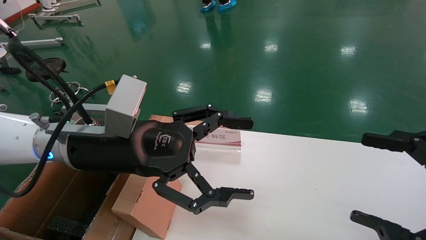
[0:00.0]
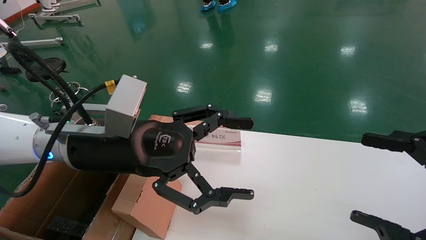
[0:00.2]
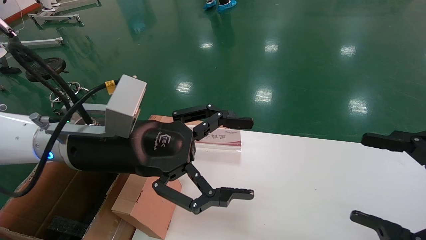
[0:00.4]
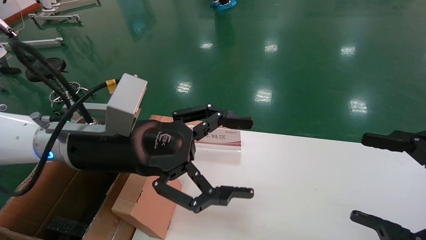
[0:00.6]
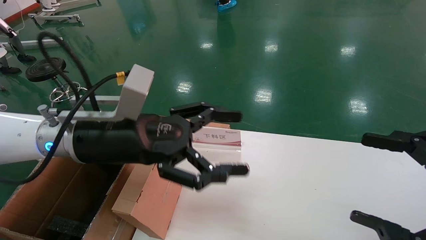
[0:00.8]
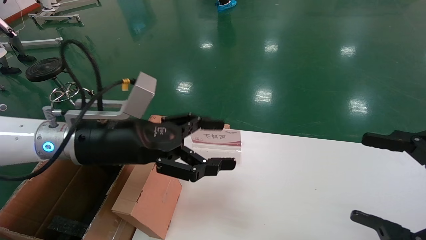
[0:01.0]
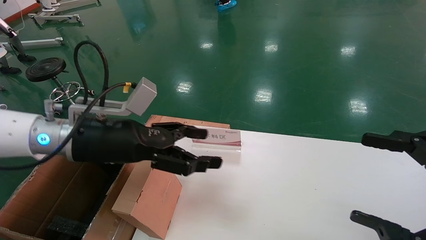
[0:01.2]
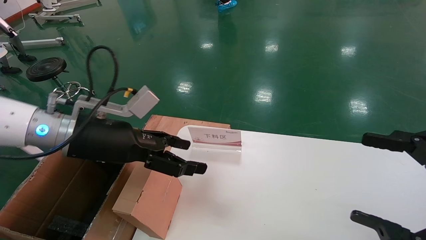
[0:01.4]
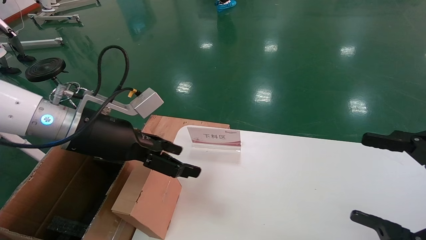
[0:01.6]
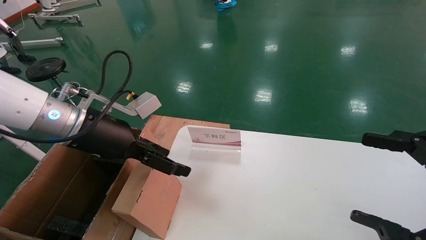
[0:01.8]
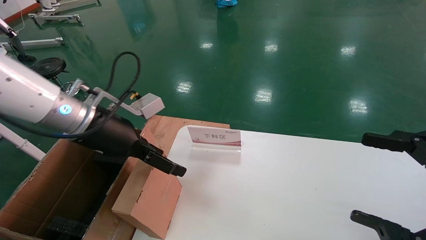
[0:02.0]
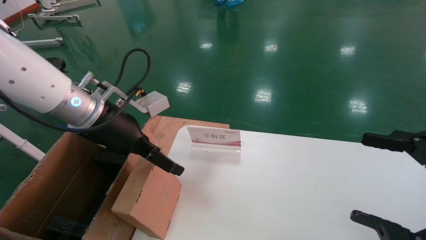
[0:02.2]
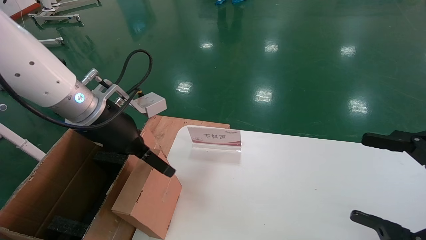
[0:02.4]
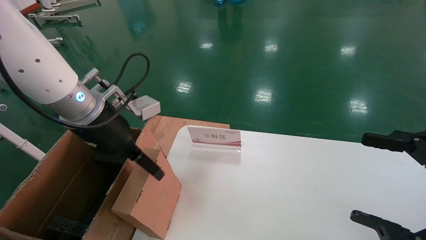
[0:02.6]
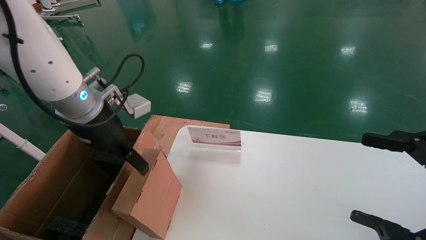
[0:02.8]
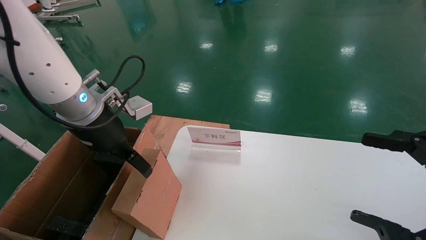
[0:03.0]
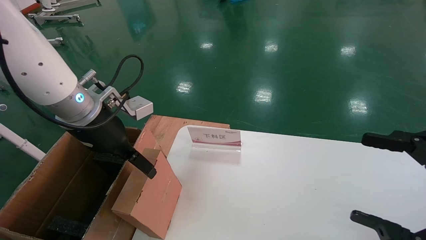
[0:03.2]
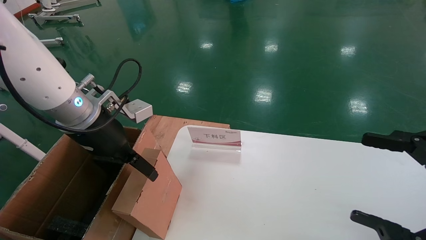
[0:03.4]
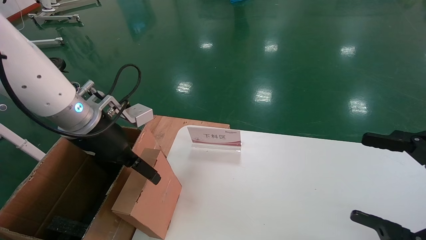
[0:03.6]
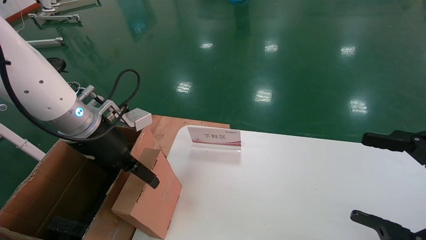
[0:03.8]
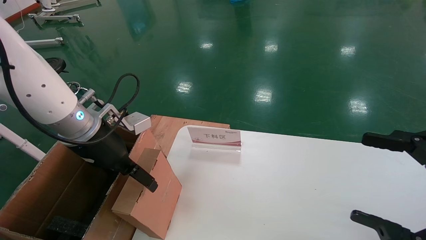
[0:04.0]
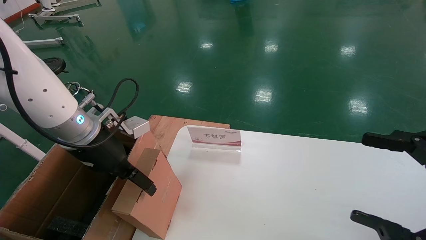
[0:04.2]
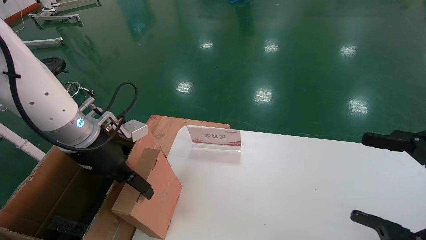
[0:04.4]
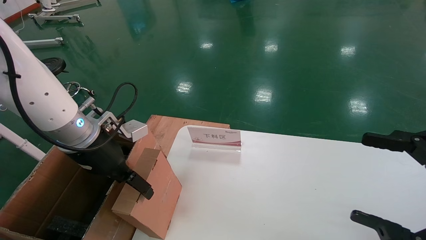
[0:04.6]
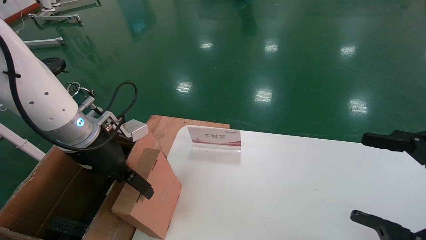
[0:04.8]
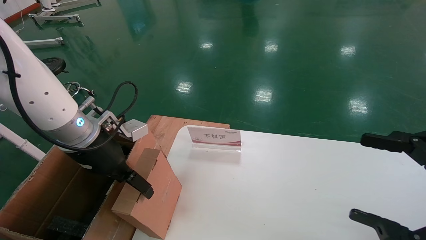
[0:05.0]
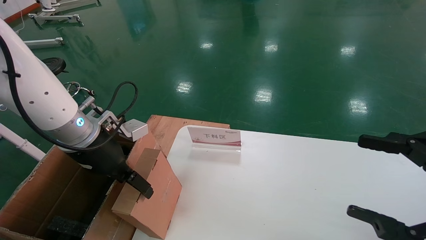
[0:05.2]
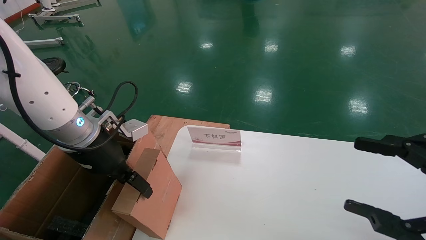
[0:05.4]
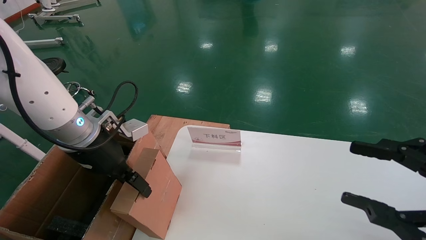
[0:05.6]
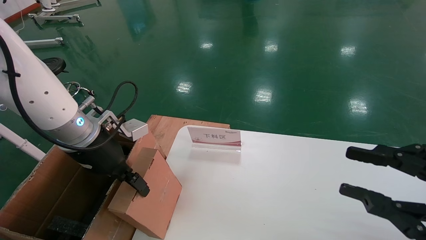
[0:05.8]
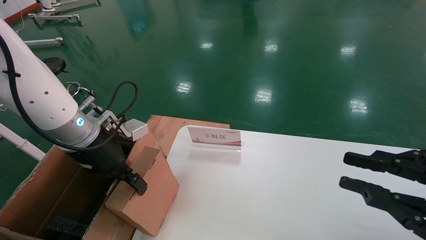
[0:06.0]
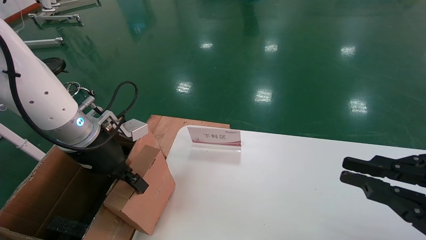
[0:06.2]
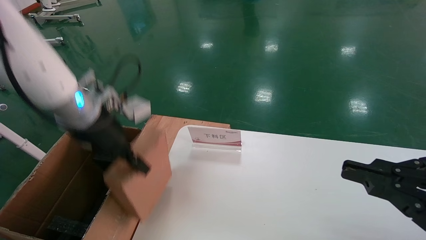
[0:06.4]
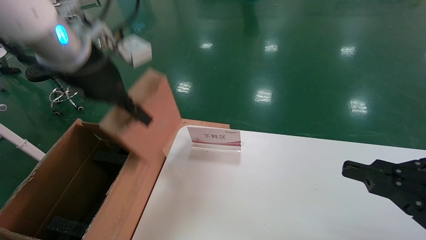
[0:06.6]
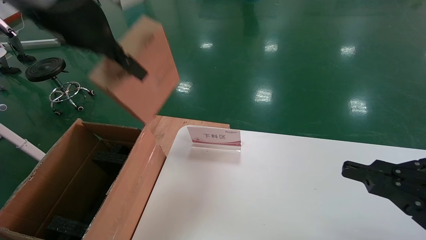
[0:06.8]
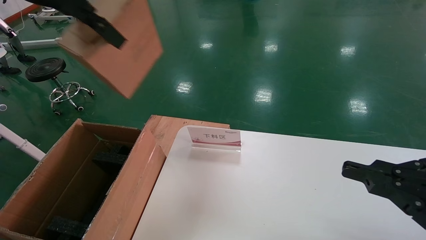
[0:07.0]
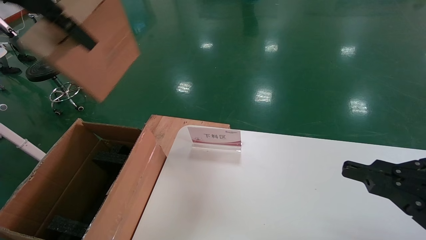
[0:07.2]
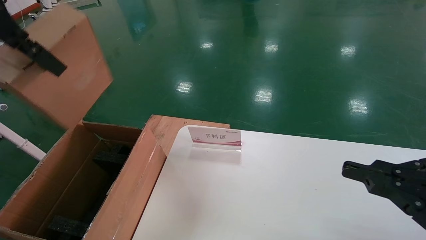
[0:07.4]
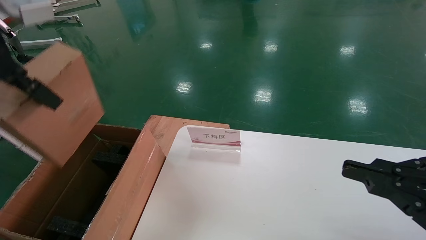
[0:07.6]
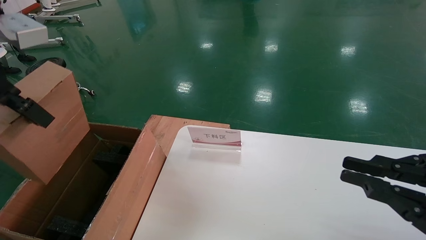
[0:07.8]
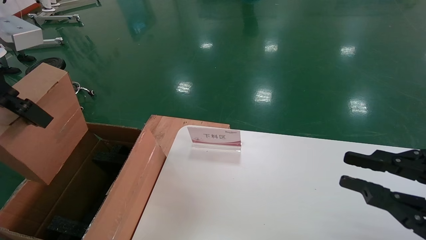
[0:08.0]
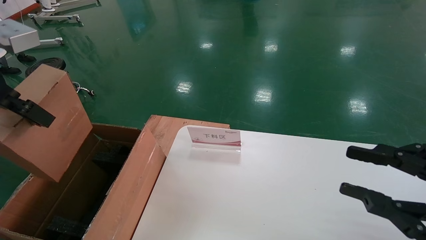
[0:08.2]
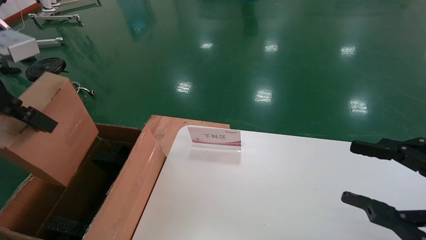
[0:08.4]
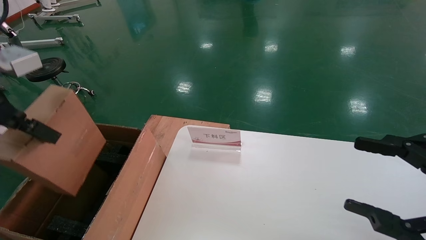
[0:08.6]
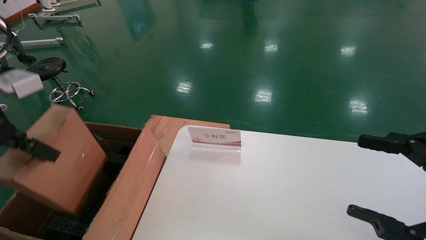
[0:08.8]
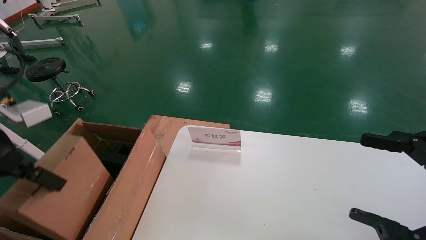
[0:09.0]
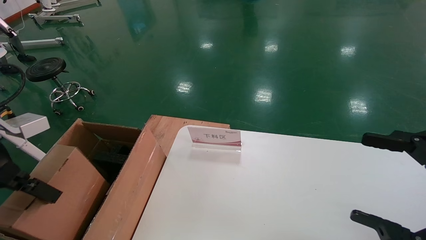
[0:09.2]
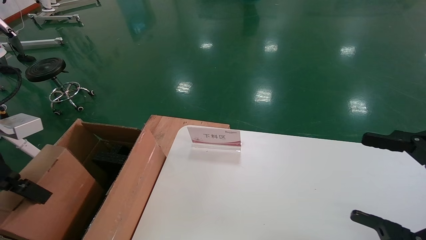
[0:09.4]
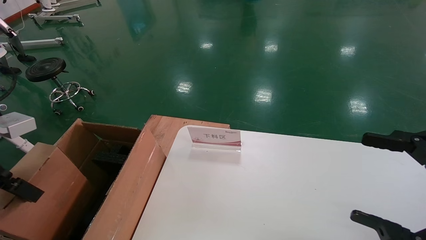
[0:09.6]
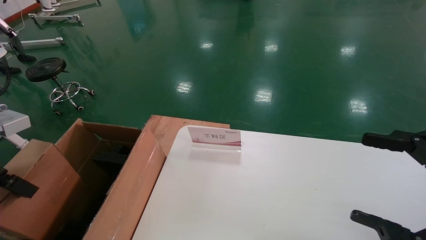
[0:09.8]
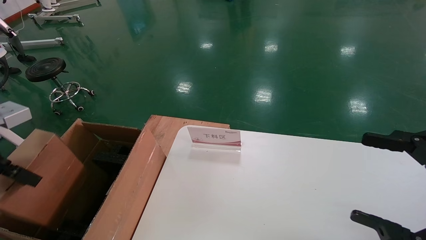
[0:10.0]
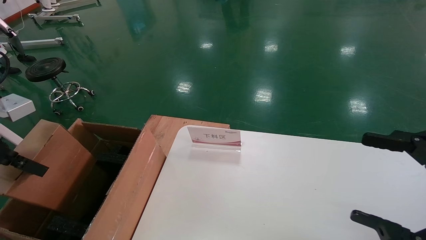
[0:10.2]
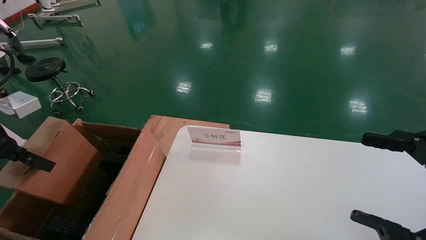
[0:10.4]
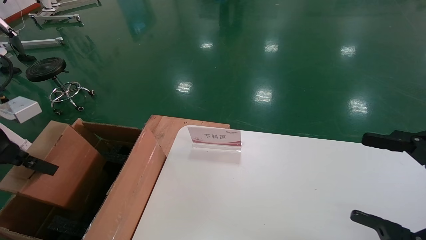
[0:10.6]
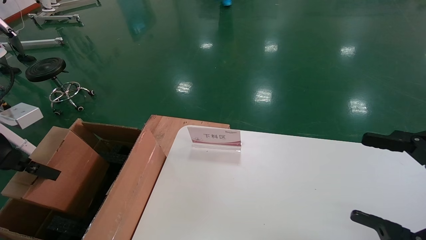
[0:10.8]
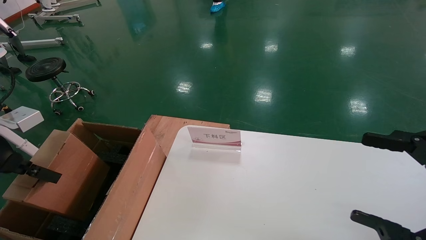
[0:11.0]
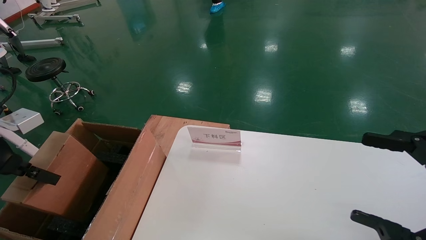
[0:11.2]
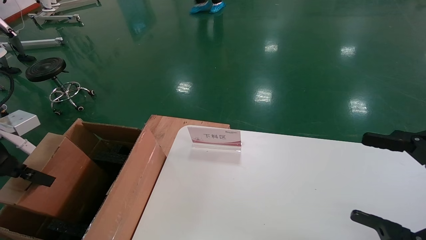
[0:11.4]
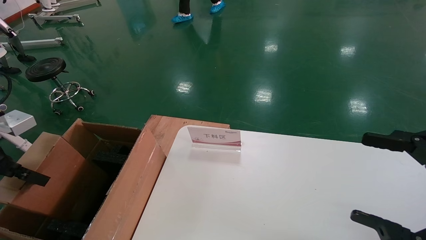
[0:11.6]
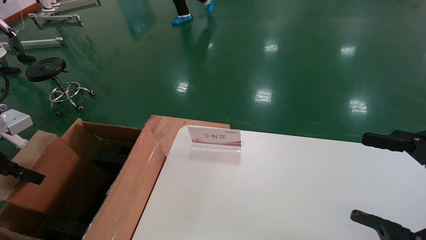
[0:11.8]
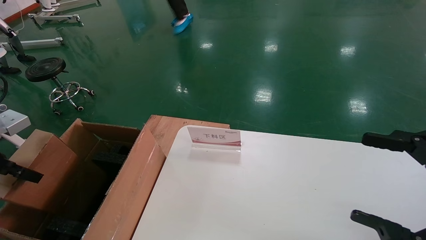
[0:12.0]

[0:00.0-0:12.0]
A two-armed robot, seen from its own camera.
Task of the whole recording: pick up the small cardboard box and load it into the large cardboard box.
Step, 0:00.8 to 0:05.8: Pick up the mouse and power cord box.
0:00.0 to 0:01.6: The left gripper travels to the left by roughly 5 cm.
0:03.0 to 0:04.4: The left gripper ends up roughly 5 cm from where it was.
0:04.4 to 0:06.0: The right gripper closes up. The left gripper closes its fingers.
0:06.0 to 0:07.6: The left gripper moves upward and backward, roughly 25 cm.
0:07.6 to 0:09.0: The right gripper opens. The left gripper goes roughly 15 cm downward and to the left.
0:09.0 to 0:10.4: The left gripper heads to the left, covering some 5 cm.
0:10.4 to 0:12.0: The left gripper changes place by roughly 5 cm.

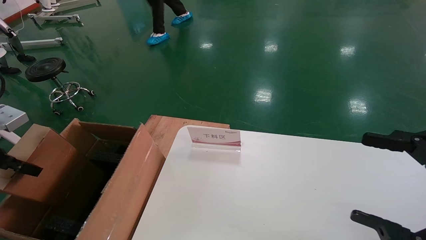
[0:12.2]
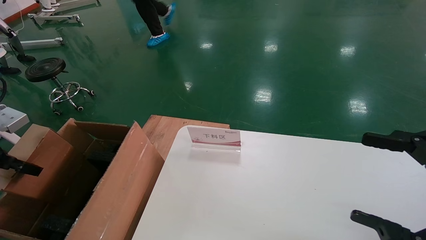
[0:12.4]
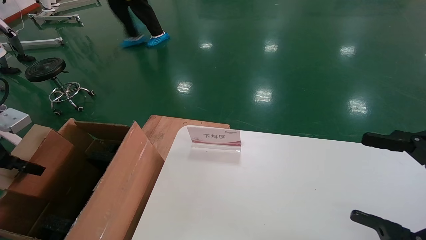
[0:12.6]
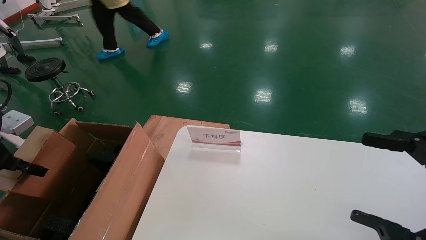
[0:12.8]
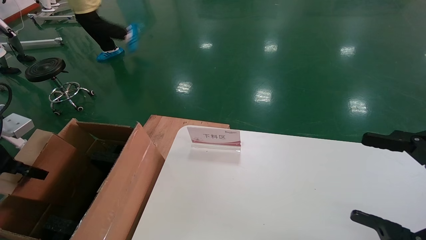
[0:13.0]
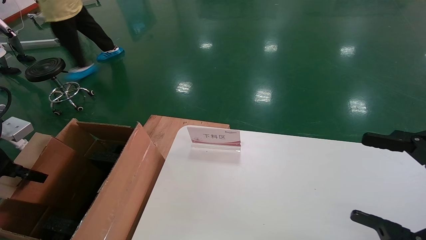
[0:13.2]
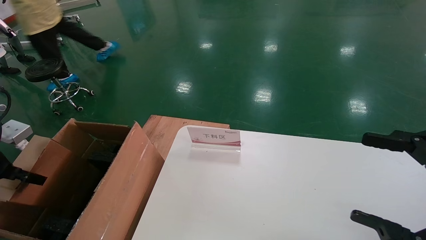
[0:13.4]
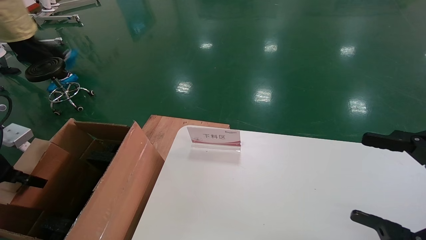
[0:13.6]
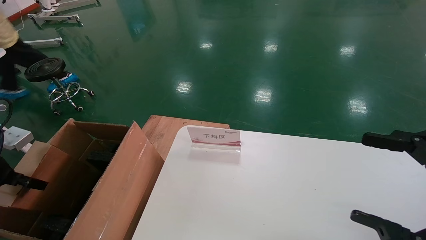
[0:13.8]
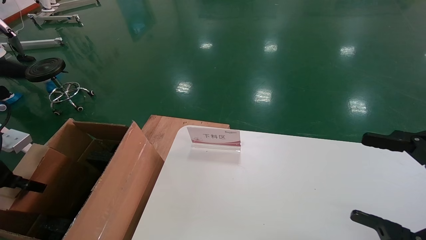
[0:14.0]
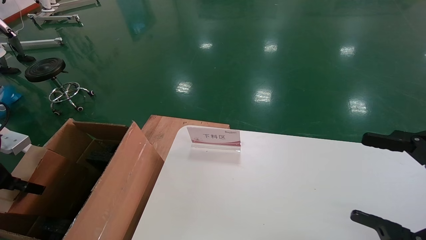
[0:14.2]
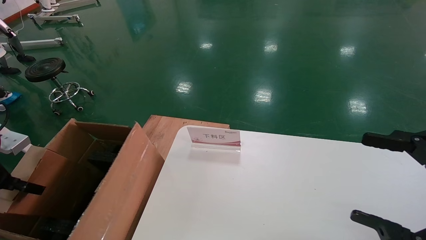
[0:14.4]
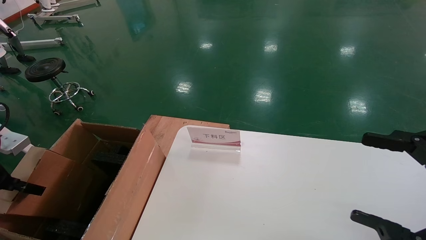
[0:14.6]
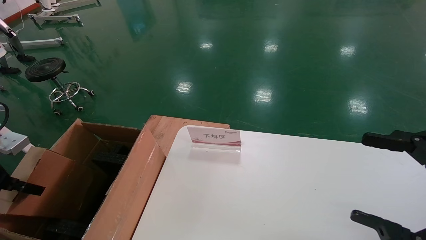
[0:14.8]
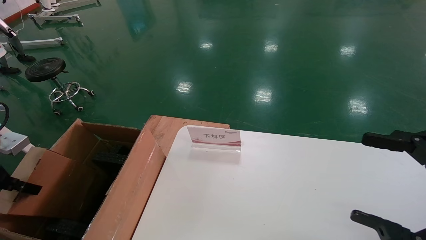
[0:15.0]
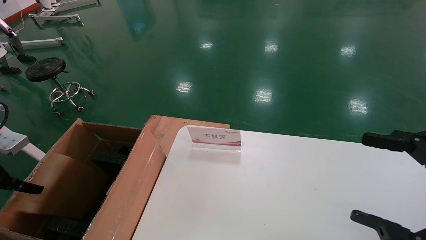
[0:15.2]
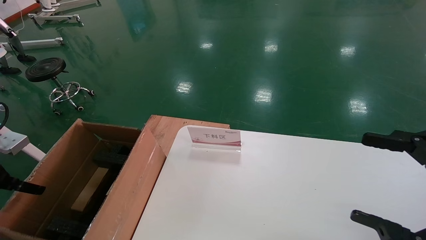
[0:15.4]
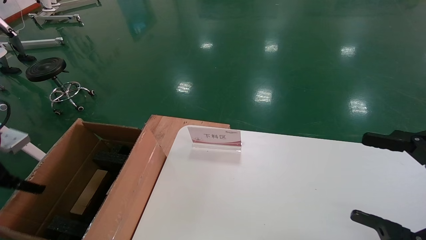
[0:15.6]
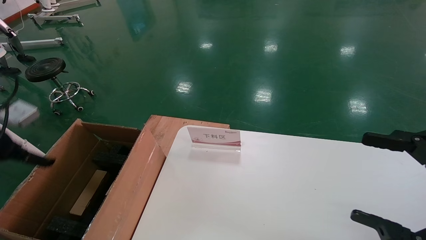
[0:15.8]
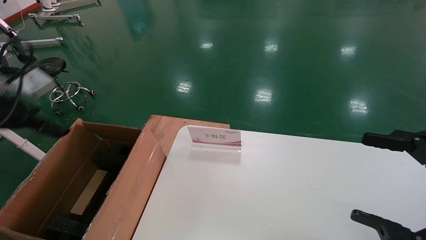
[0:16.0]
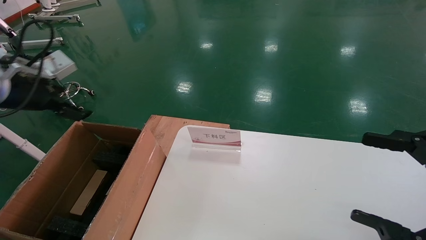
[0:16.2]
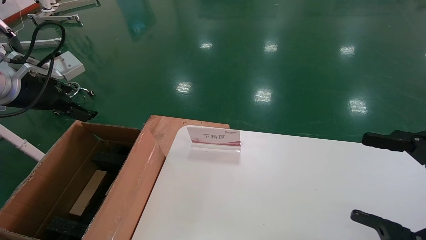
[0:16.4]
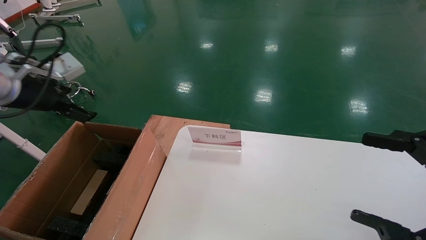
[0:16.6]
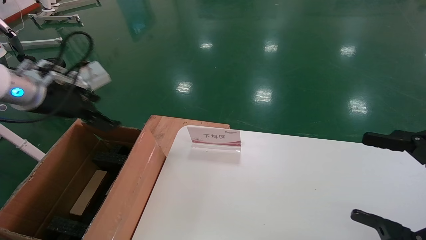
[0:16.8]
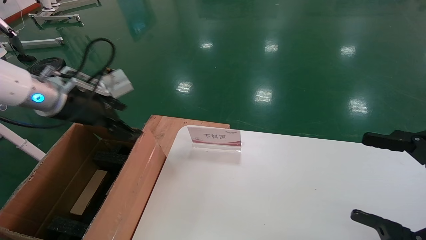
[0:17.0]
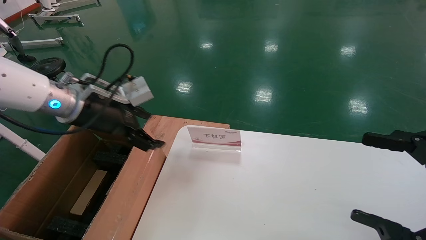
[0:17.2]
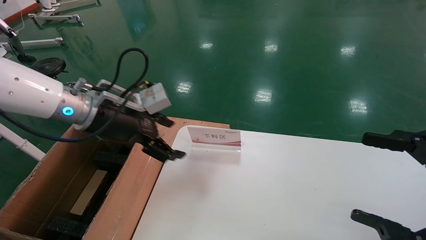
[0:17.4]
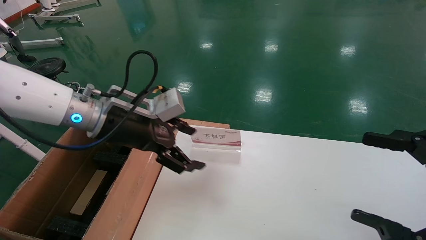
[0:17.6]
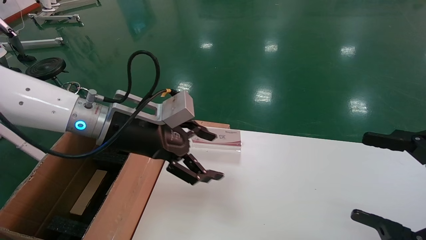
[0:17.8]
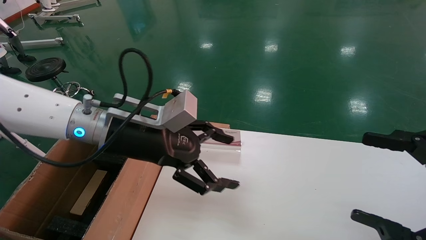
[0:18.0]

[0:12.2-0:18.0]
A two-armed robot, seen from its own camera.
Task of the whole recording: pick up the small cardboard box and load it into the large cardboard box.
Step, 0:12.2 to 0:14.6: Place the mouse and power cord box into the case.
0:12.2 to 0:13.6: The left gripper changes place by about 5 cm.
0:13.6 to 0:15.0: The left gripper opens its fingers.
0:15.0 to 0:16.6: The left gripper heads upward, to the right and forward, covering roughly 20 cm, and opens its fingers.
0:16.6 to 0:18.0: The left gripper travels to the right by approximately 20 cm.
